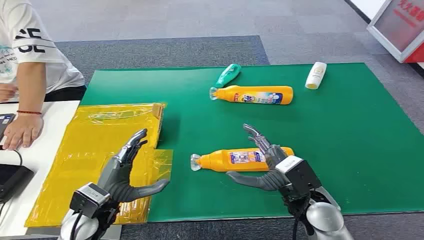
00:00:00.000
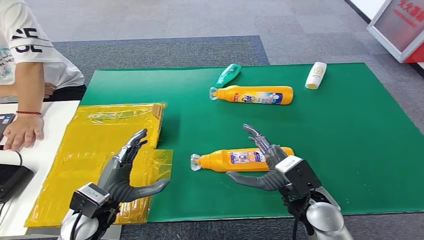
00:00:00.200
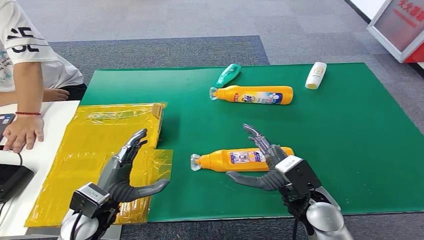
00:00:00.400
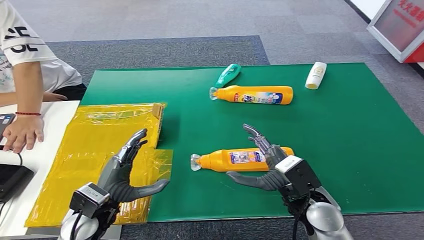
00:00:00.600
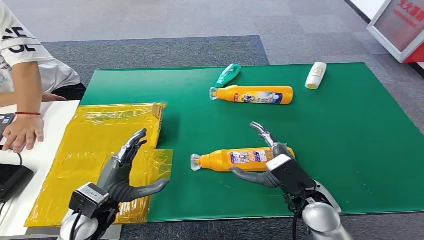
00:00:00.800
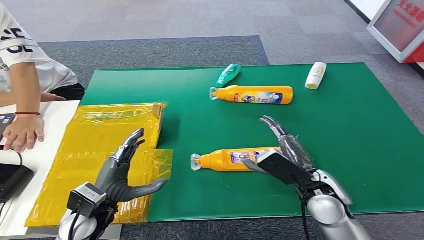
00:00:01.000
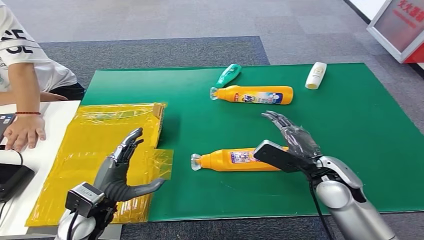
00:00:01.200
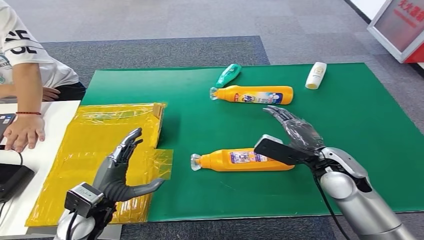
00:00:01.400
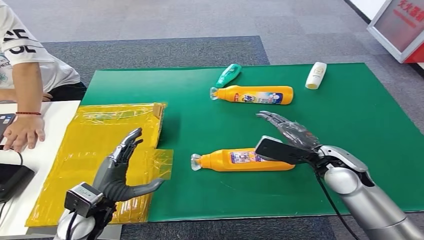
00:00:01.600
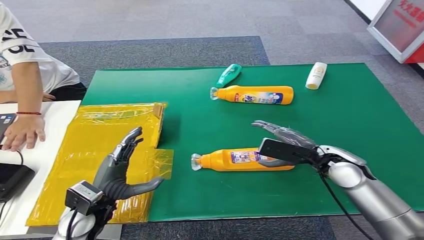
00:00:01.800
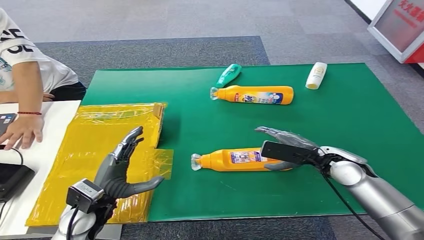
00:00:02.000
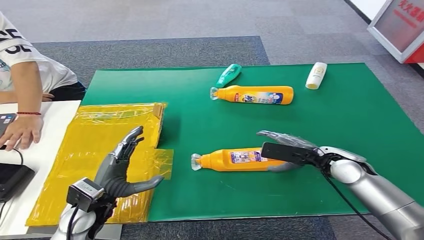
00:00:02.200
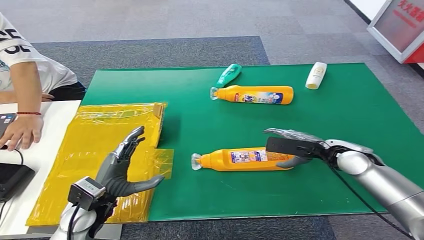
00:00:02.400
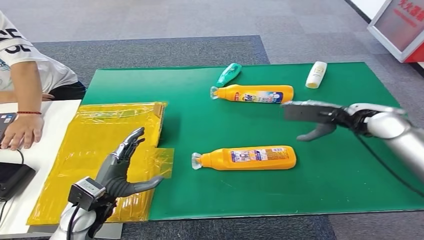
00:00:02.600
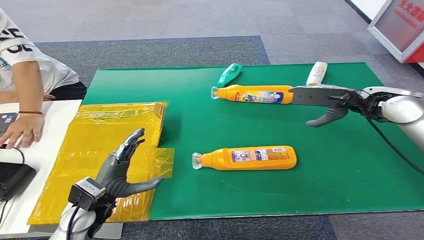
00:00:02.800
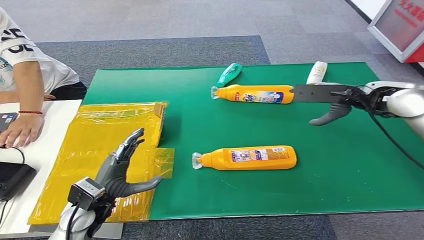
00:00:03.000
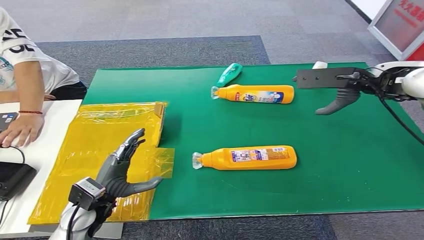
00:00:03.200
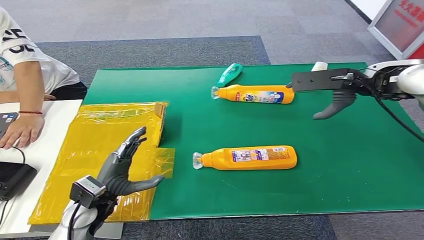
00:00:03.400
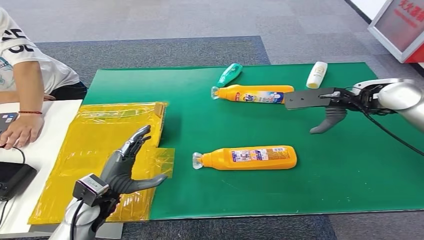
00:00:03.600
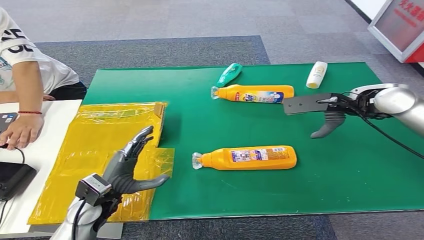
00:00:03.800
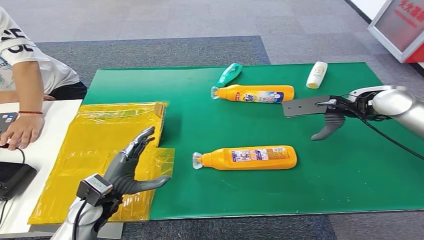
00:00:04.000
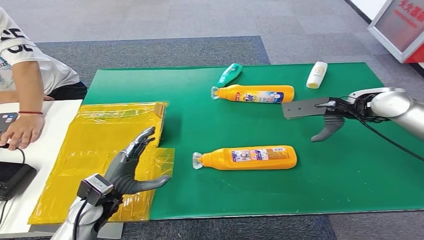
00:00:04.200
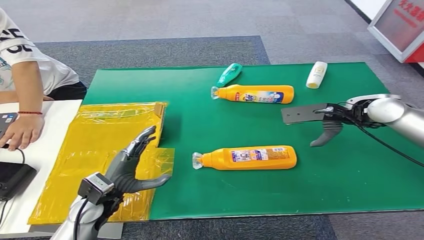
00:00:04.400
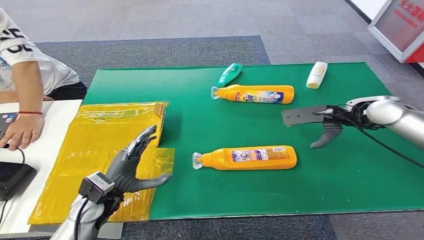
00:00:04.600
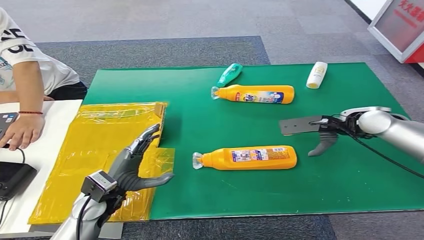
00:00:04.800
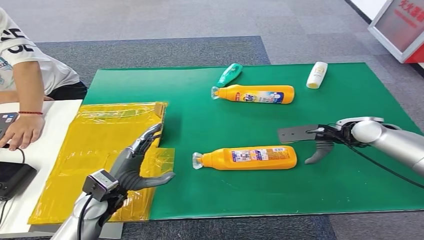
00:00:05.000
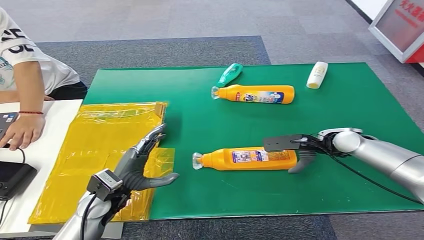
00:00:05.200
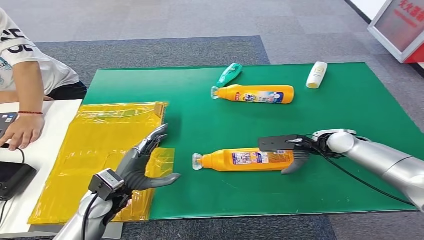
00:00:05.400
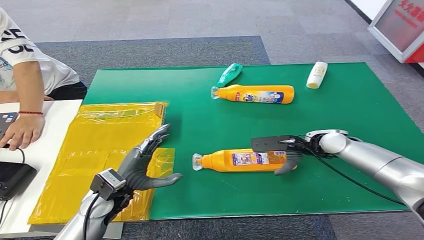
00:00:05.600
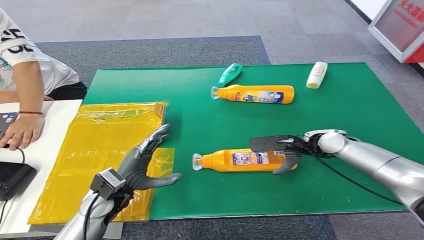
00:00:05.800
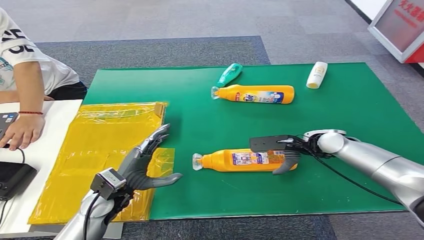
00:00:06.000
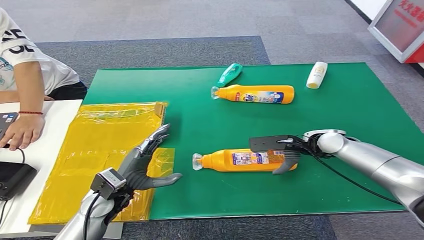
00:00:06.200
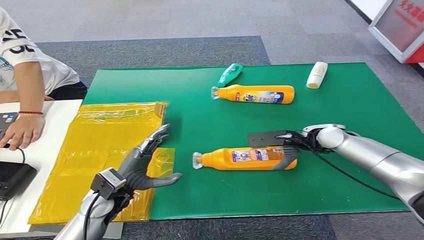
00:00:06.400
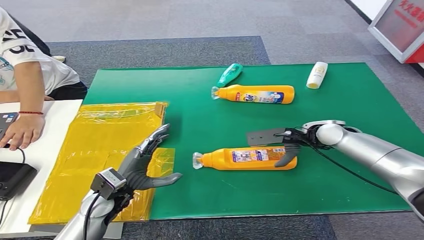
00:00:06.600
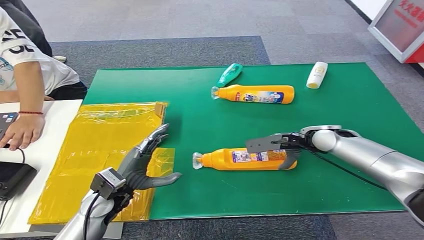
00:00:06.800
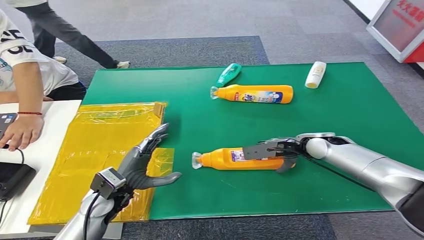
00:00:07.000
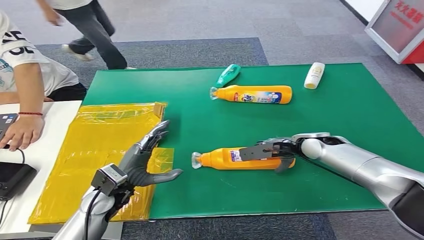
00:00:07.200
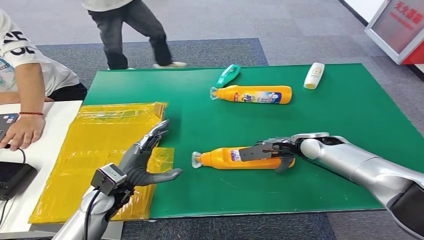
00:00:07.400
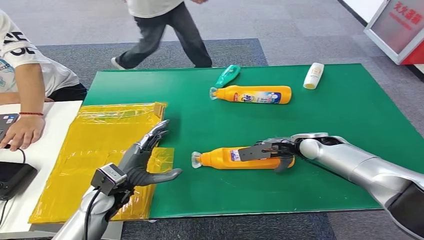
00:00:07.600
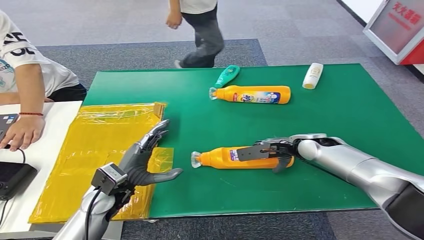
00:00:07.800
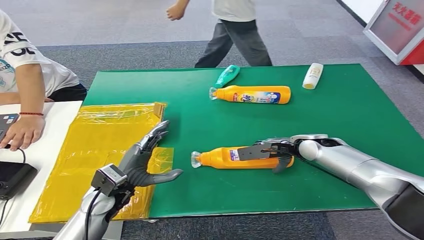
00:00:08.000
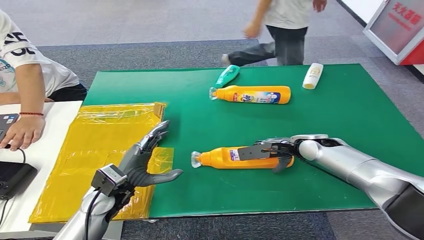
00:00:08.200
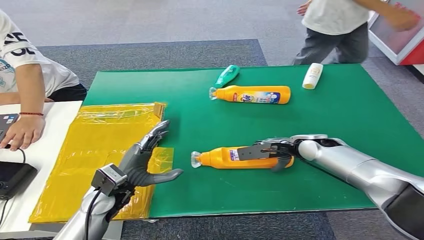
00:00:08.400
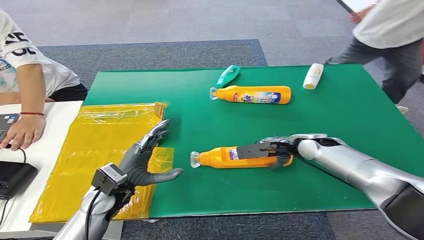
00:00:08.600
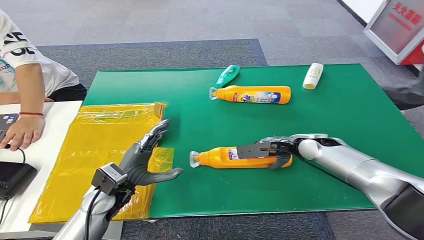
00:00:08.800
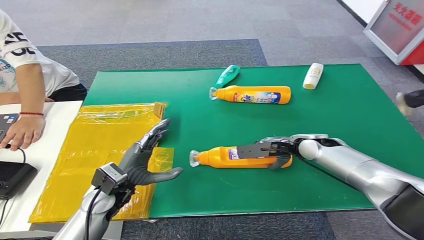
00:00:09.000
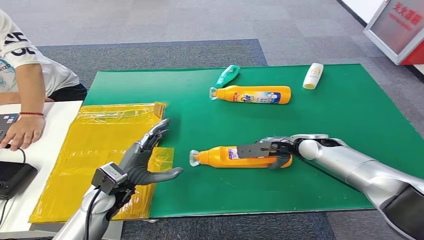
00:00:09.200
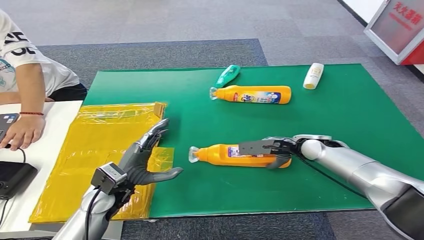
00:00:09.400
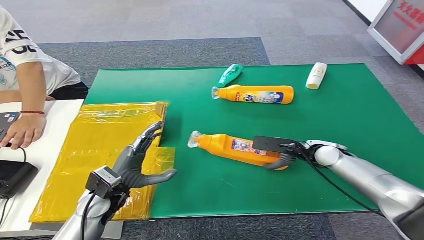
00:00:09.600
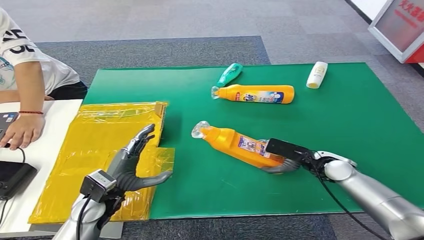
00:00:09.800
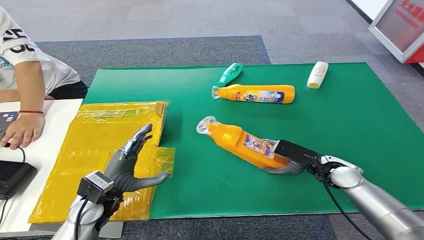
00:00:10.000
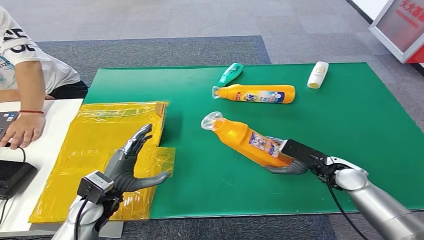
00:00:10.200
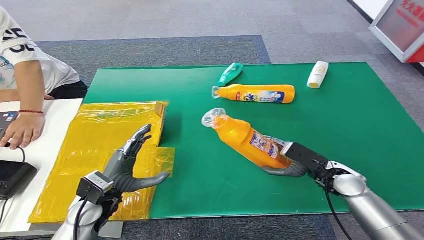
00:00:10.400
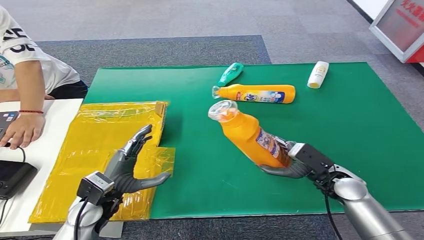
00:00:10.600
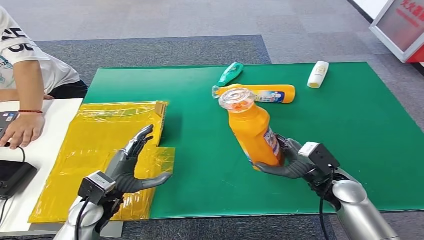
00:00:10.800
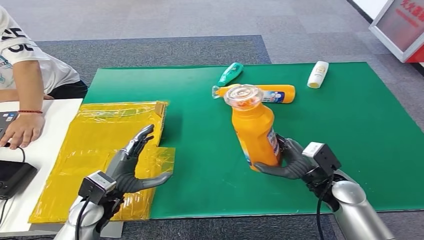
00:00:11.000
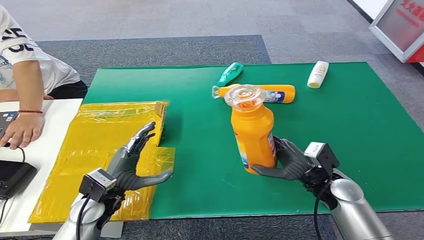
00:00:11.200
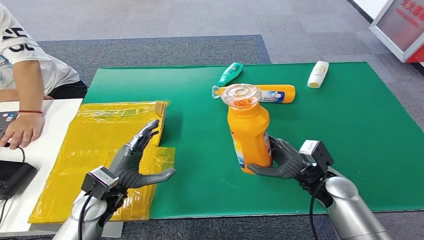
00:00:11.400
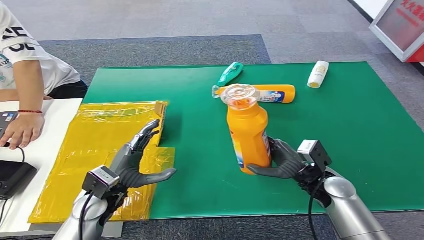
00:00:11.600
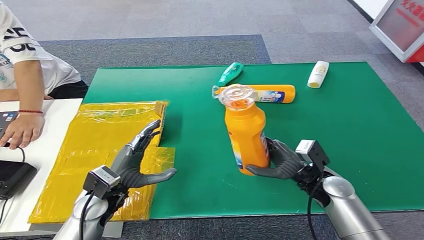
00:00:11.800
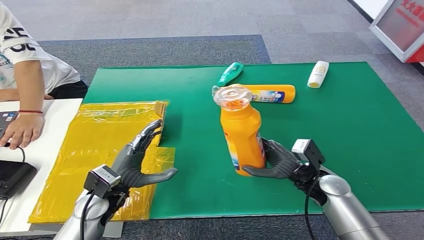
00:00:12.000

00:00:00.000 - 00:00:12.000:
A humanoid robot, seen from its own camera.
Step, 00:00:00.000 - 00:00:10.800: Pick up the bottle from the table.
00:00:01.600 - 00:00:03.000: The right hand shifts roughly 20 cm upward, forward and to the right.
00:00:03.000 - 00:00:04.400: The hands stay close to where they were, moving slightly.
00:00:04.400 - 00:00:06.000: The right hand heads downward and to the left, covering some 15 cm.
00:00:07.600 - 00:00:09.000: The two hands keep their place.
00:00:10.400 - 00:00:12.000: The right hand moves to the left, approximately 5 cm.

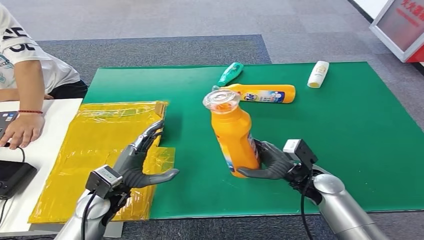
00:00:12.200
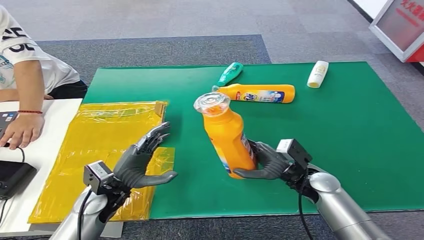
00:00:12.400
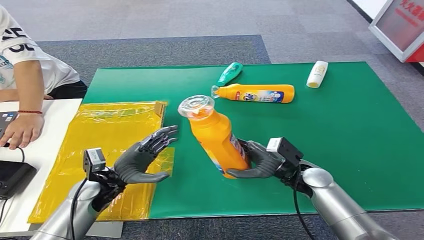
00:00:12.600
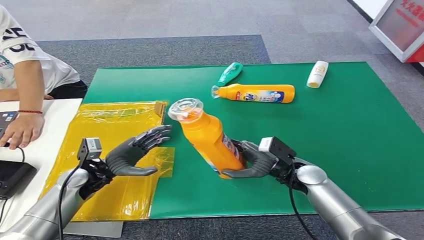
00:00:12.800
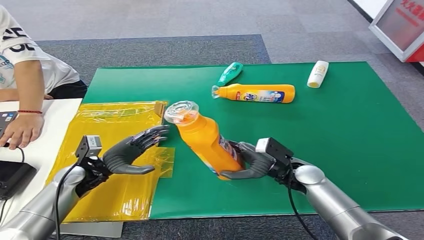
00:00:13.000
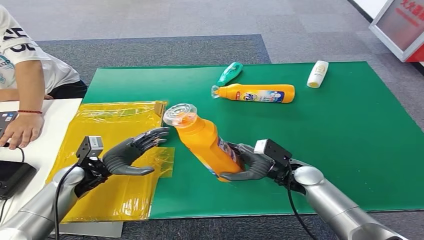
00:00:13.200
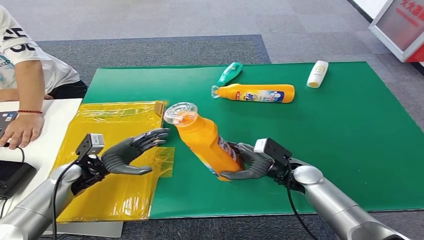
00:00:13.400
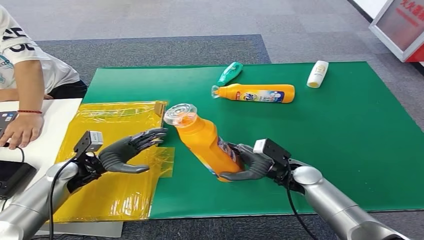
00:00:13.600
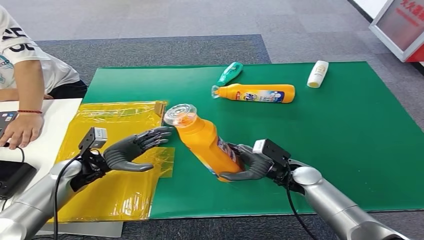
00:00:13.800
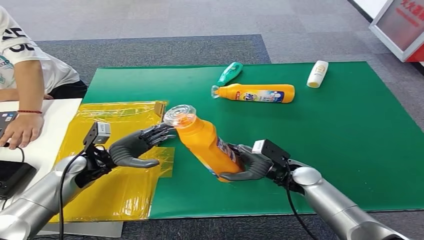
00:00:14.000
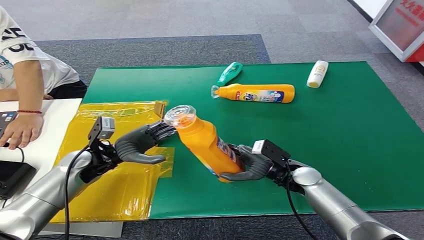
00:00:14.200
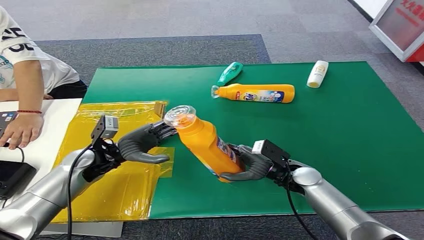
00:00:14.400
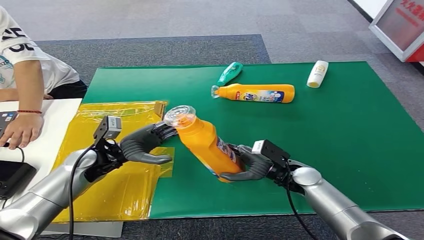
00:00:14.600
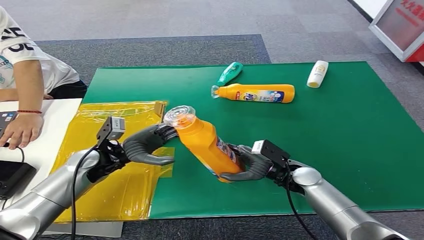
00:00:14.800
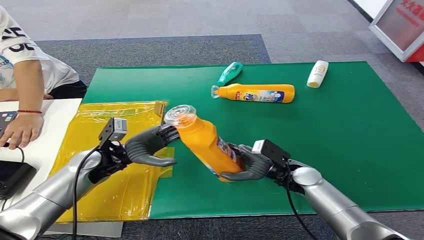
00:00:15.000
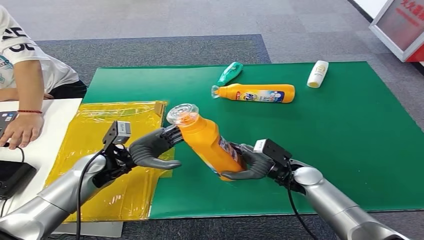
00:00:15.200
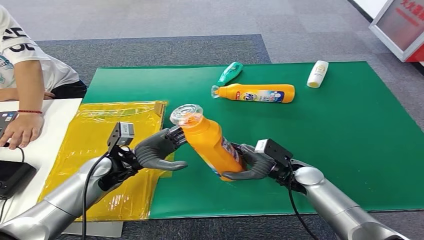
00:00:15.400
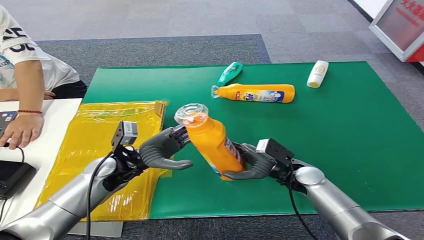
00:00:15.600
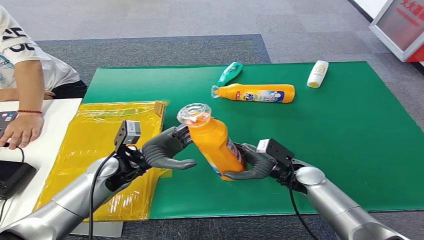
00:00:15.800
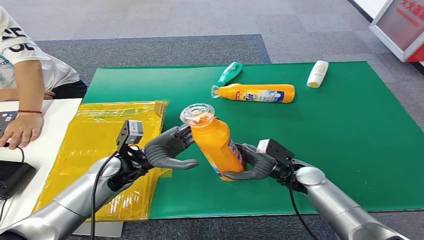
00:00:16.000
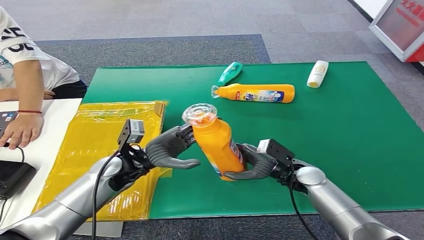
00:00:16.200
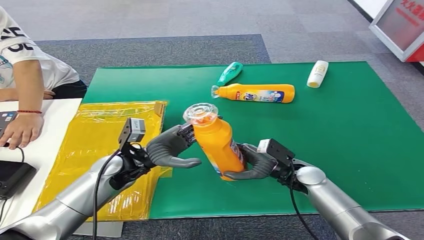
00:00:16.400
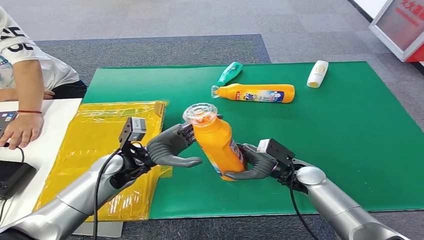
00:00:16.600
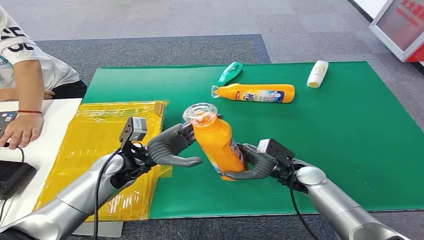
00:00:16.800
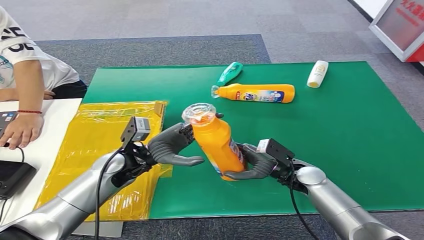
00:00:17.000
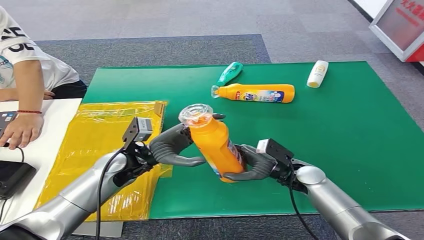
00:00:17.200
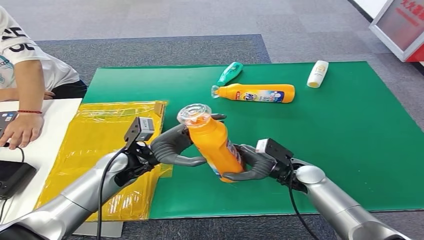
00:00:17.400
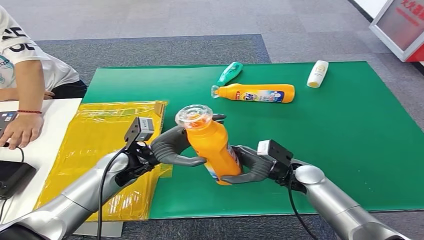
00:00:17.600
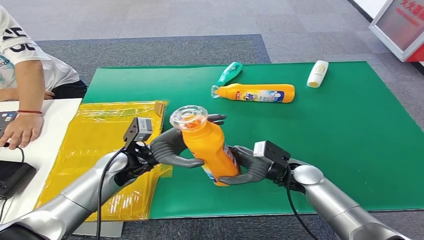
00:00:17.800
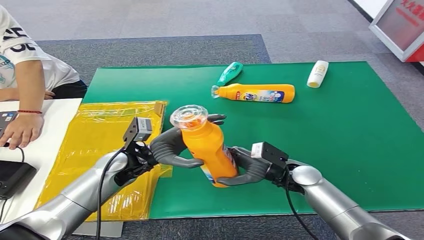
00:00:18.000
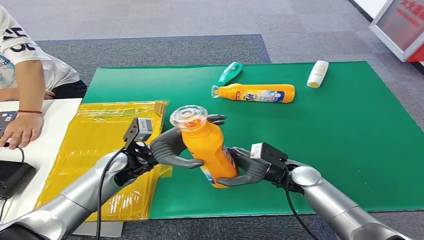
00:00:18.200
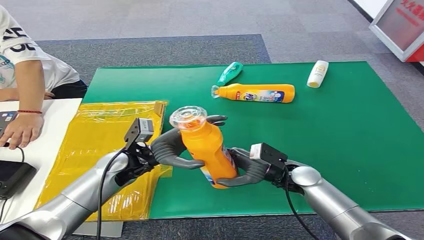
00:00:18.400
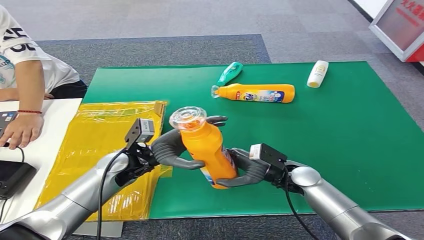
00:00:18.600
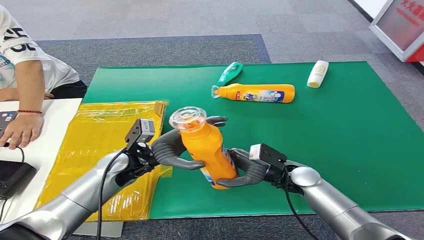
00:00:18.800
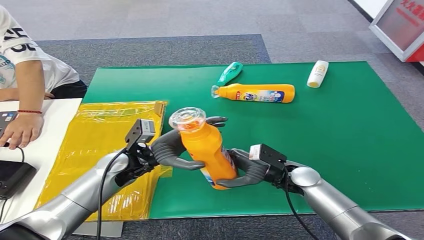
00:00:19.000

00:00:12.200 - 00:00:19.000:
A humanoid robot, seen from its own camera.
00:00:13.600 - 00:00:15.000: The left hand heads to the right, covering about 10 cm.
00:00:15.000 - 00:00:16.200: The left hand is displaced to the right by approximately 5 cm.
00:00:16.200 - 00:00:17.600: The hands stay close to where they were, moving slightly.
00:00:17.600 - 00:00:19.000: Neither hand changes place.
